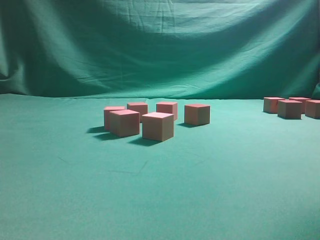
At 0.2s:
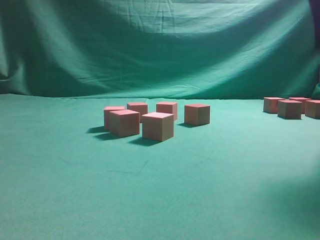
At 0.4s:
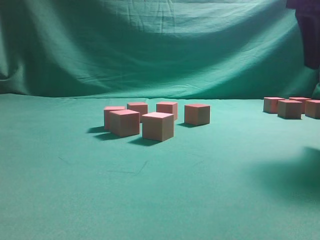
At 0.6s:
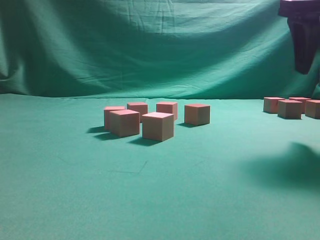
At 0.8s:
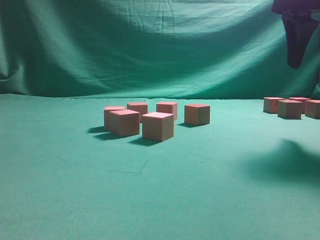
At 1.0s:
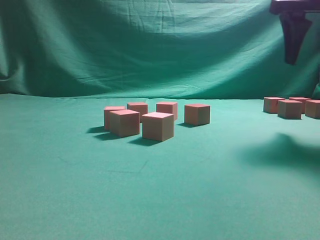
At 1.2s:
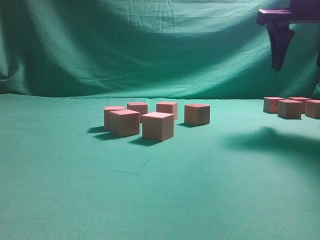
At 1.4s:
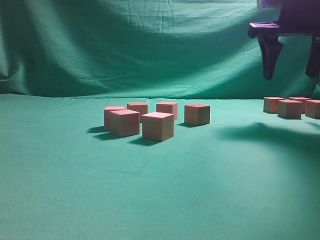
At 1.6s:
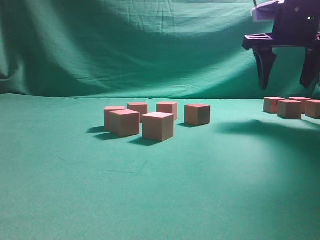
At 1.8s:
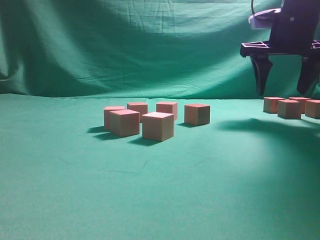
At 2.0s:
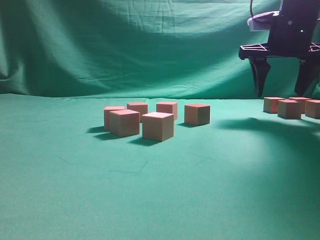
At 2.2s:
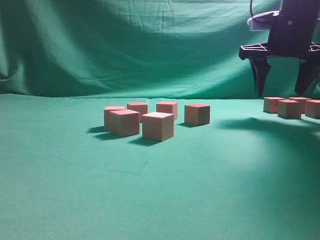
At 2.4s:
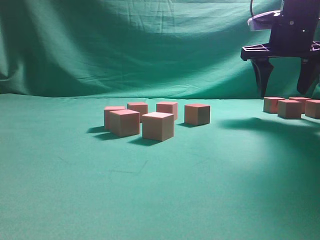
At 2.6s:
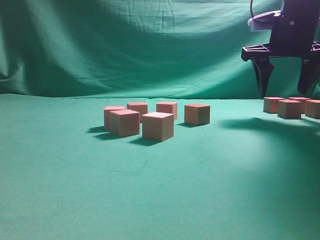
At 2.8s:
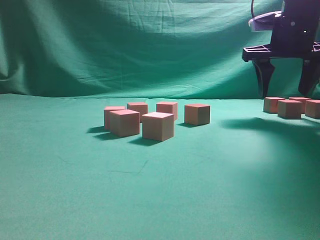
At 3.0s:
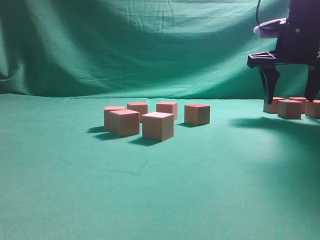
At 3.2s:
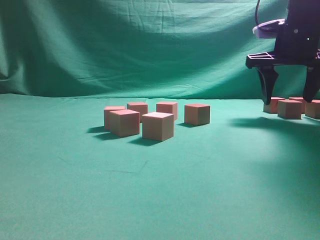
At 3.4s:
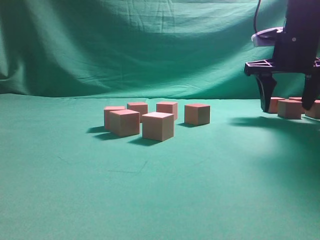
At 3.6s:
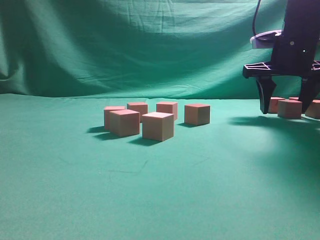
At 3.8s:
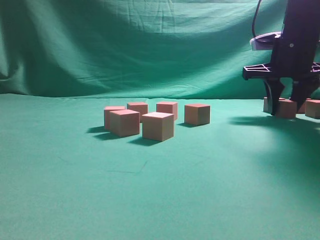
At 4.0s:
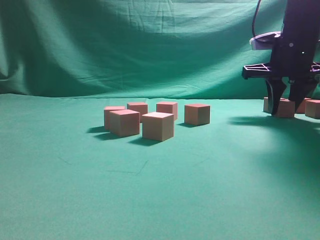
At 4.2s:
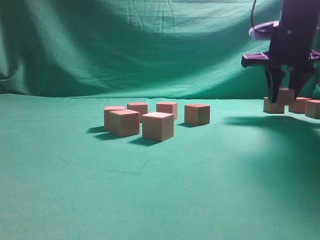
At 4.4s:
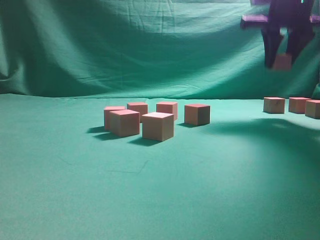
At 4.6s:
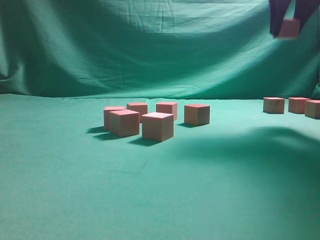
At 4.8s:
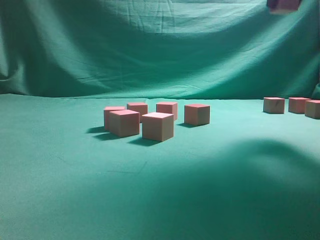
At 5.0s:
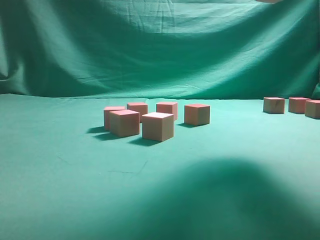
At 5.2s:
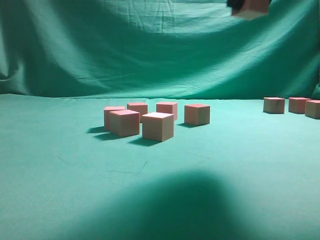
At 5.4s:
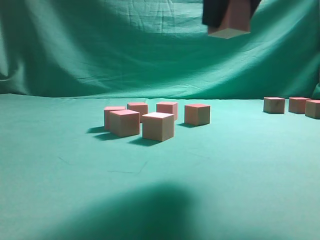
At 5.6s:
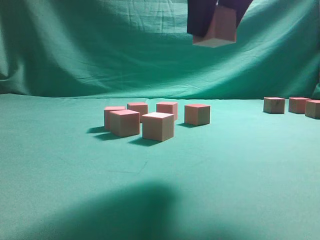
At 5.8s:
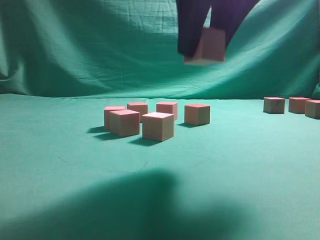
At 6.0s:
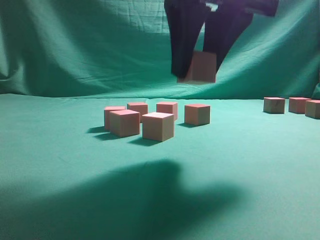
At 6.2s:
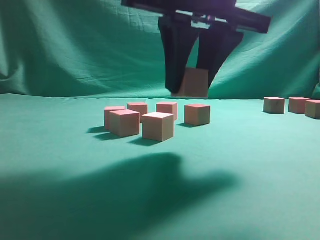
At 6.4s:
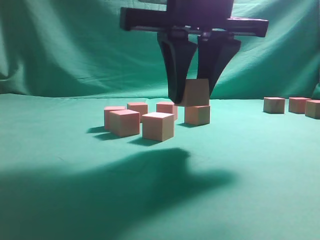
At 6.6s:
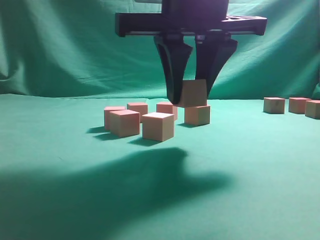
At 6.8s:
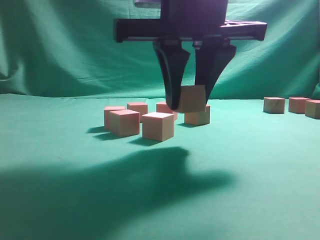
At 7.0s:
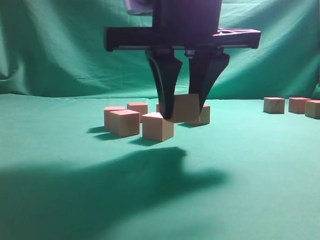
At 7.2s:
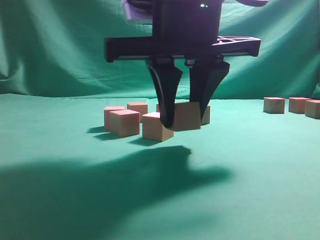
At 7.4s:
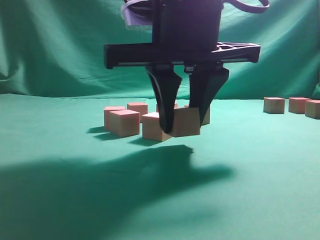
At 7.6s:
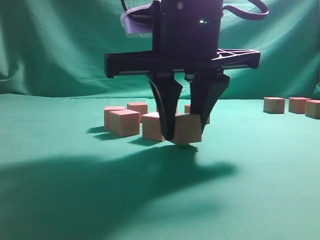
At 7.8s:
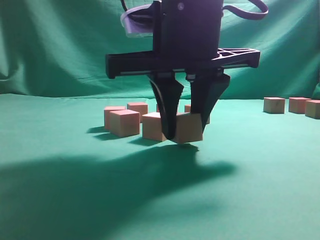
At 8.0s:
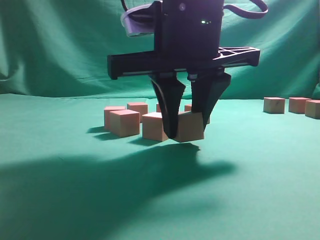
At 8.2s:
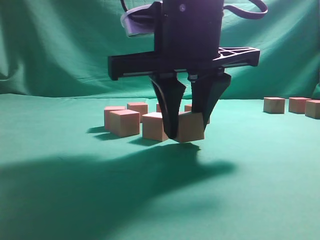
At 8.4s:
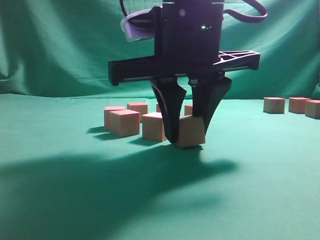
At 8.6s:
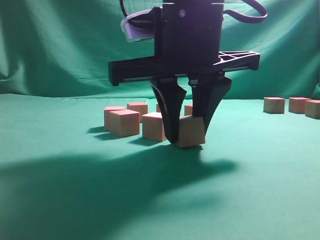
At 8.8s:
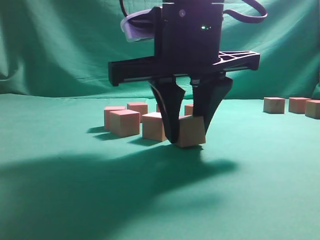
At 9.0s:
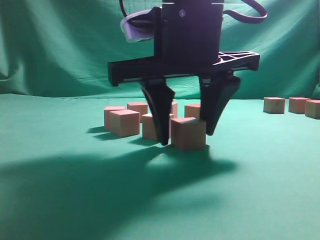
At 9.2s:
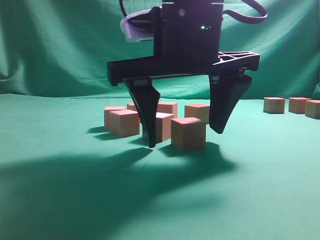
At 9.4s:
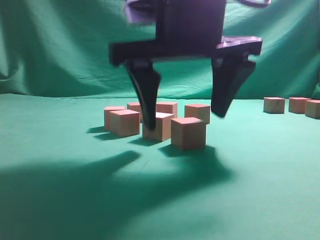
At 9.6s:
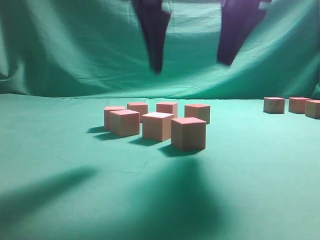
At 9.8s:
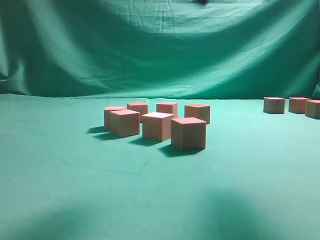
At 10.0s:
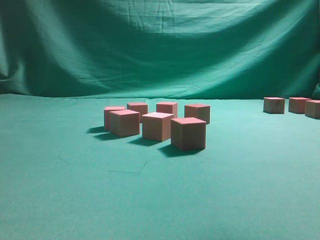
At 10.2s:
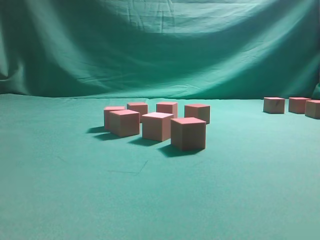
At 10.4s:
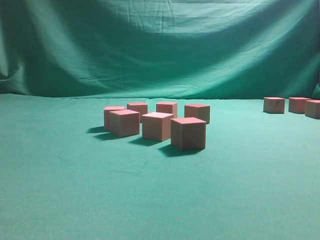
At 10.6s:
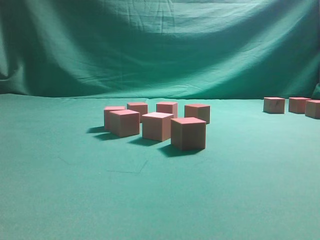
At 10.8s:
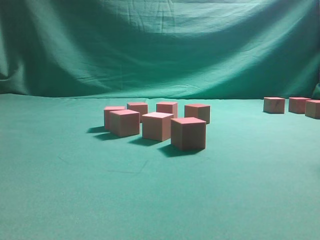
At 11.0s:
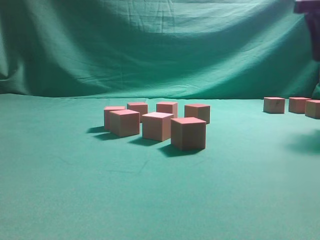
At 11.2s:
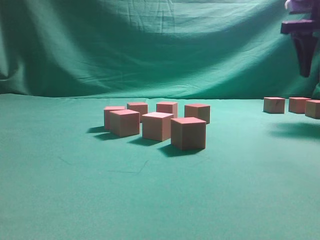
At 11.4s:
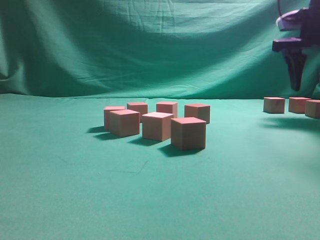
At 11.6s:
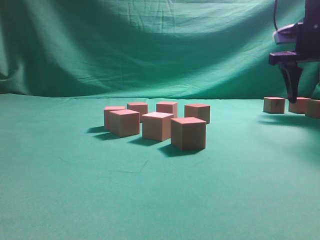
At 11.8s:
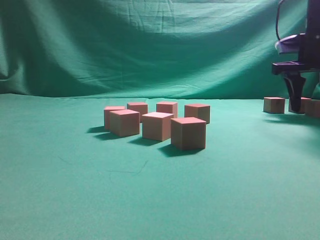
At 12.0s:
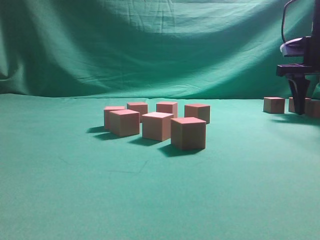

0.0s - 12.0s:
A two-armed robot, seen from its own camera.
Task of the whole recording: pick up the multiple cubes in two columns one by one and place them in another position on the table.
Step, 0.0s - 4.0s: Pick up the block on the table.
Step, 4.2s - 9.2s: Place the block at the correct position to assemble the letter S.
0.0s - 1.6s: The right gripper shifts approximately 15 cm forward and downward.
1.6s - 3.0s: The grippers move only a little.
3.0s - 4.4s: The right gripper shifts some 5 cm upward, and closes its fingers.
4.4s - 6.0s: The right gripper travels backward and to the left by about 25 cm.
6.0s - 7.6s: The right gripper moves downward, about 5 cm.
7.6s - 9.0s: The two grippers keep their place.
9.0s - 10.4s: The right gripper heads to the right and upward, covering approximately 30 cm.
10.4s - 12.0s: The right gripper moves forward and downward, approximately 25 cm.

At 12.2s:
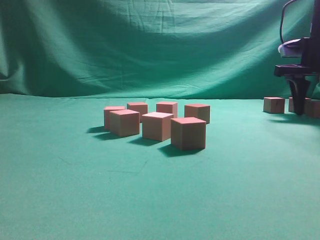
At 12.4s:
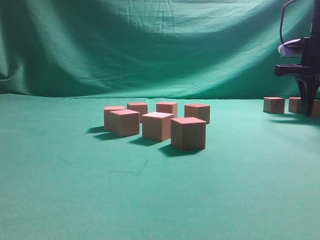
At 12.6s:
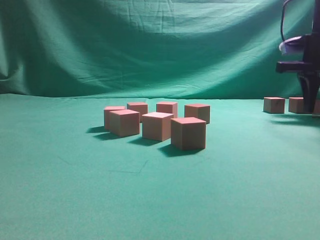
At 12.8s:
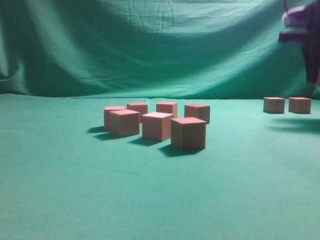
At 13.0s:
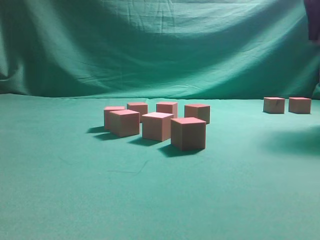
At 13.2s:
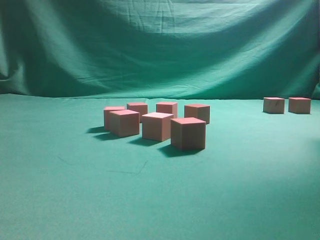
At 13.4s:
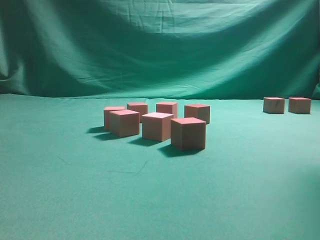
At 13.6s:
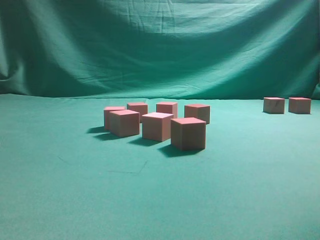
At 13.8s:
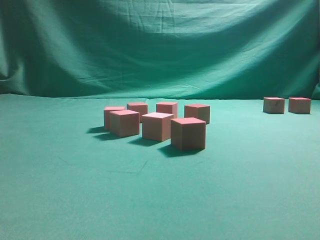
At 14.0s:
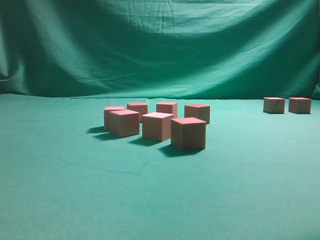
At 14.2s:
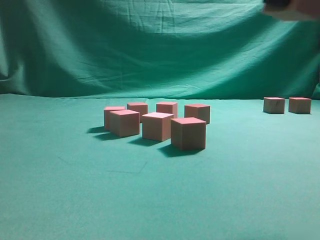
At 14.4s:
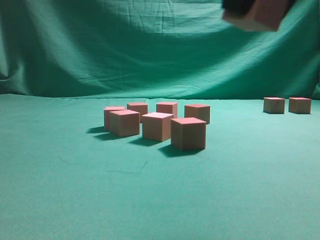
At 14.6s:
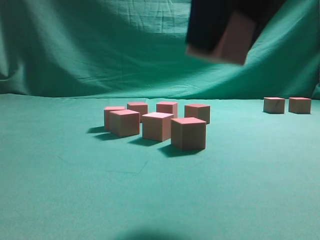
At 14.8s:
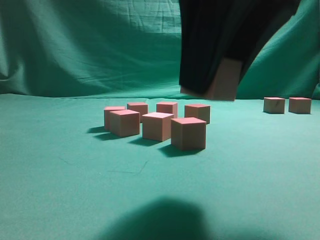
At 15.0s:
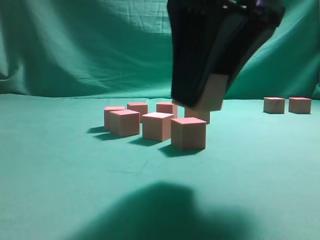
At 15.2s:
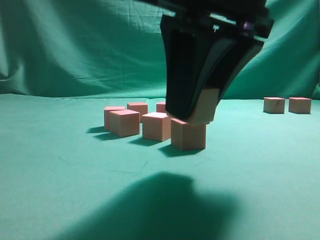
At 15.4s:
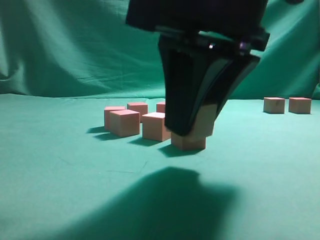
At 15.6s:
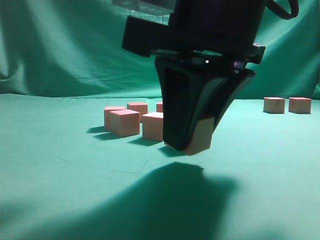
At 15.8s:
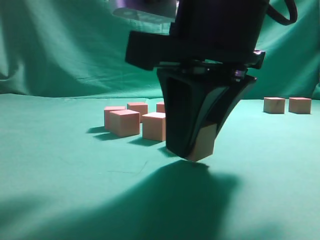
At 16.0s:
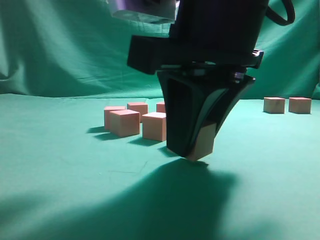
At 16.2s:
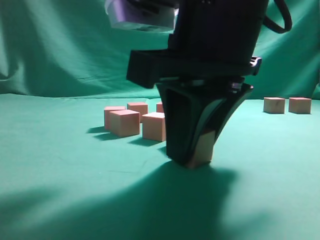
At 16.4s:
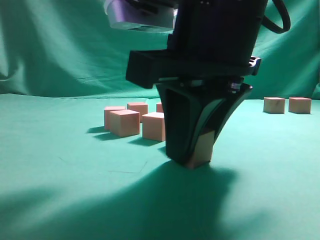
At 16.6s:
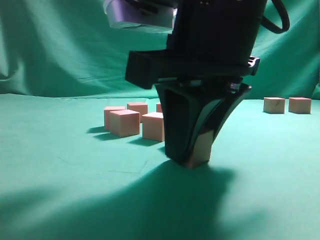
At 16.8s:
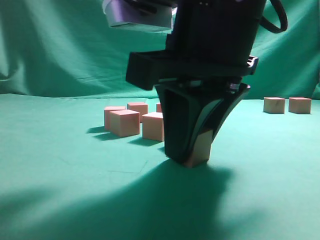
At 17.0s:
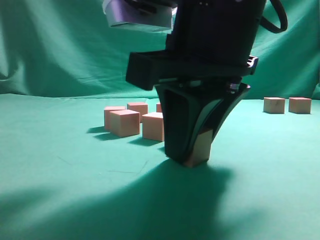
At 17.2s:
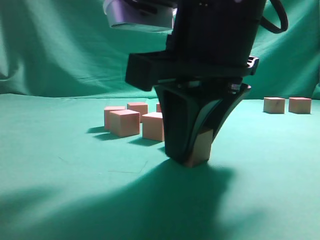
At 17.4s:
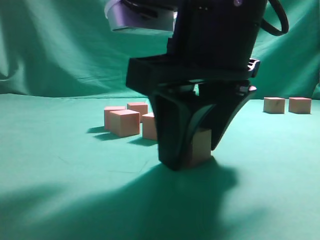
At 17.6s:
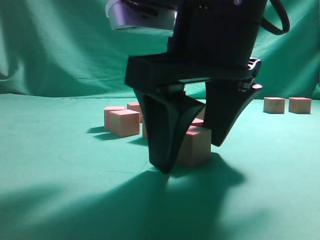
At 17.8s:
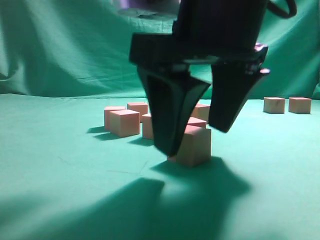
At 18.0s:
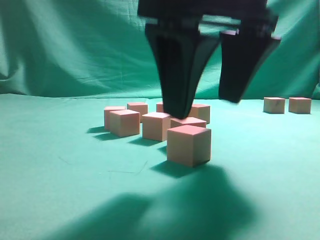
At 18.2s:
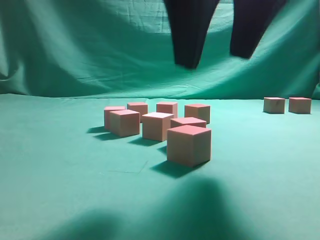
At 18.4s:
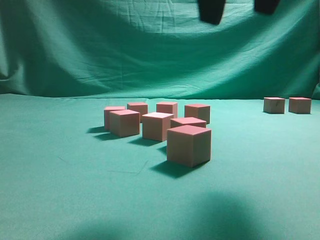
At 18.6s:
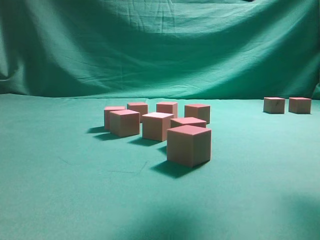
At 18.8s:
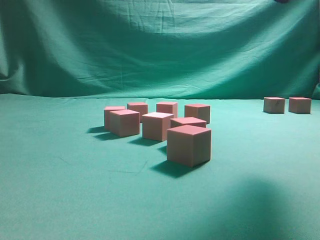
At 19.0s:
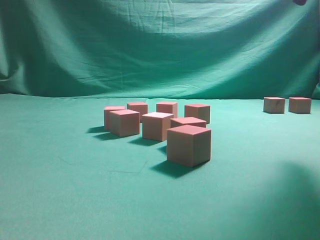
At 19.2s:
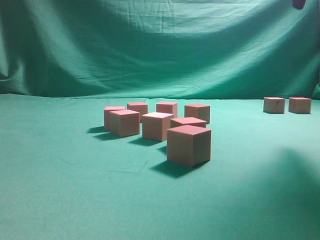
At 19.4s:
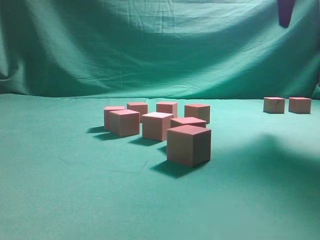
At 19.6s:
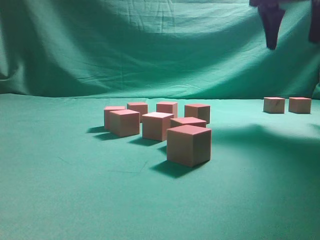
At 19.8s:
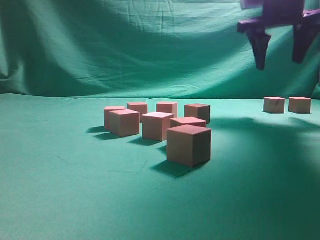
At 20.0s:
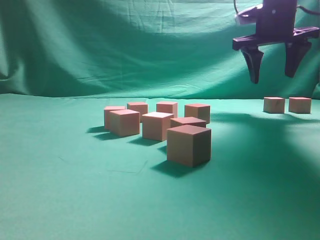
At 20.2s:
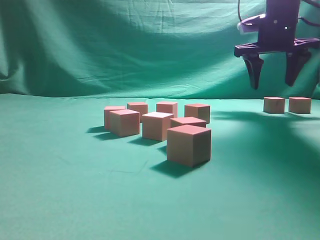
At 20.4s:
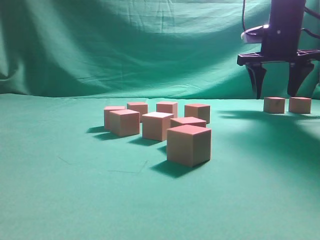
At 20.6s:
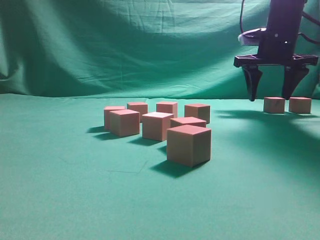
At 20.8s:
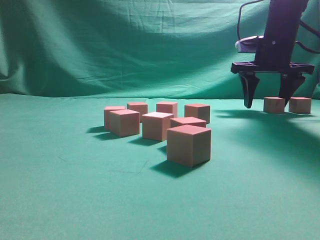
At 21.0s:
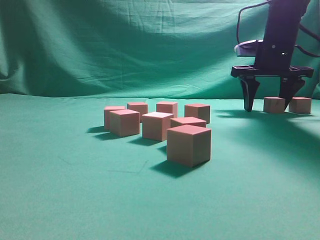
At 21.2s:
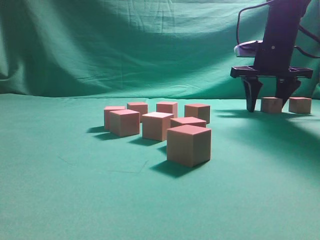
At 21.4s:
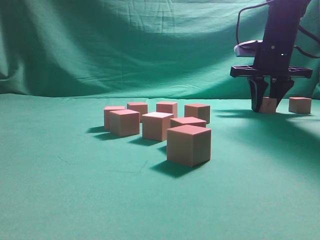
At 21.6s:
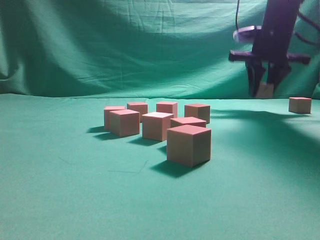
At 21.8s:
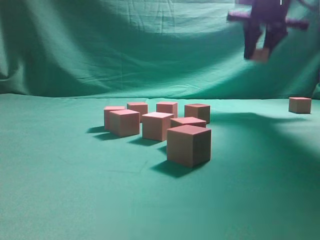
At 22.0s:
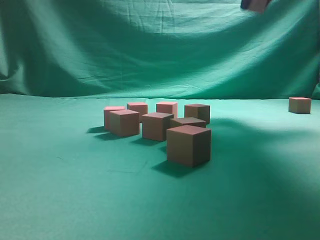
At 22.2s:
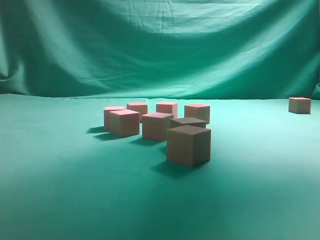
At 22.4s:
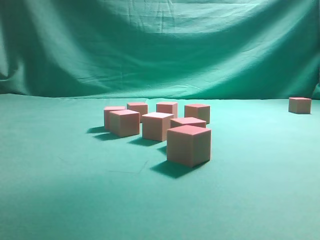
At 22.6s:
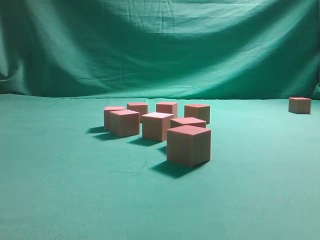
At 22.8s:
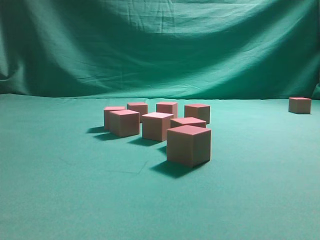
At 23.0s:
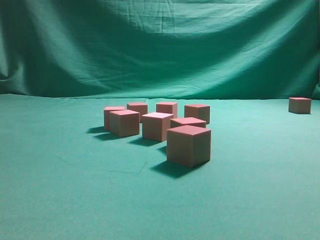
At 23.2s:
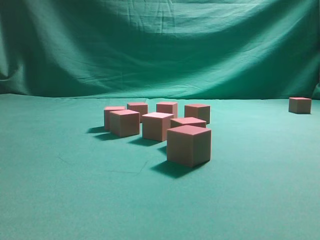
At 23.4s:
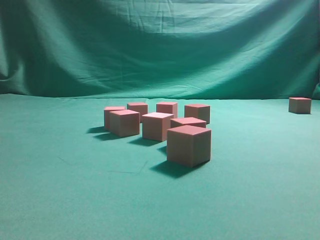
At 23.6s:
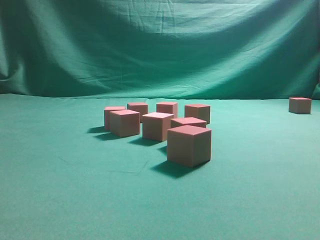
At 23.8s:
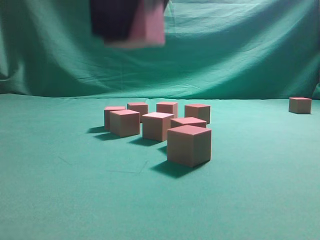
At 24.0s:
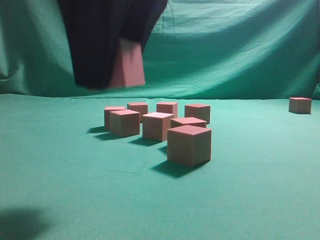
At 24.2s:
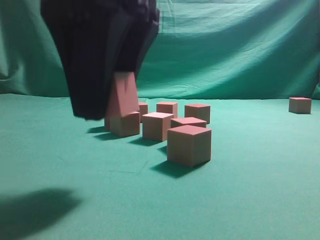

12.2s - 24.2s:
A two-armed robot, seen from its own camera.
Task of the whole recording: pick up the multiple cubes in two columns one by one and place them in another position on the table.
Step, 12.8s - 17.6s: Place the block at the correct position to assemble the letter S.
Step, 18.0s - 21.4s: Pick up the block on the table.
12.2s - 13.8s: The right gripper is displaced backward and upward by roughly 30 cm, and closes up.
13.8s - 15.2s: The right gripper heads downward and to the left, covering about 20 cm.
16.6s - 18.2s: The right gripper heads upward, covering approximately 10 cm, and opens up.
18.2s - 19.8s: The right gripper is displaced forward and to the right by approximately 30 cm.
19.8s - 21.2s: The right gripper shifts approximately 10 cm downward and forward.
21.2s - 22.6s: The right gripper shifts about 35 cm upward and backward.
22.6s - 24.2s: The right gripper travels downward, to the left and backward by about 30 cm.
